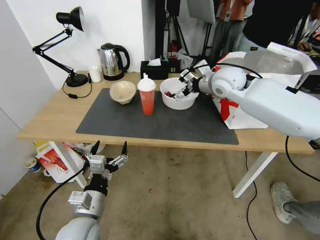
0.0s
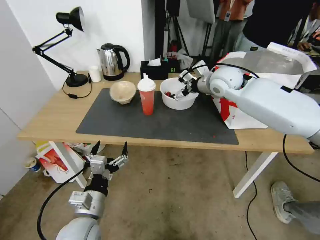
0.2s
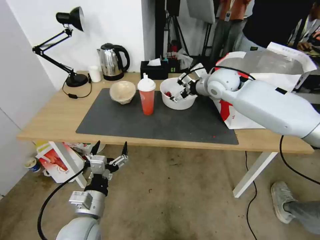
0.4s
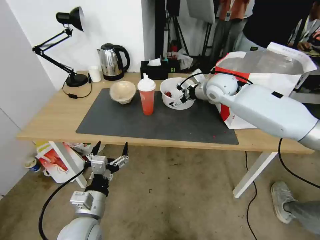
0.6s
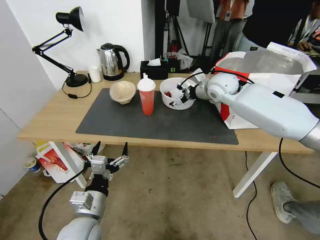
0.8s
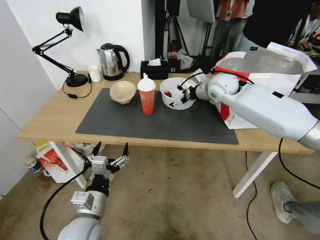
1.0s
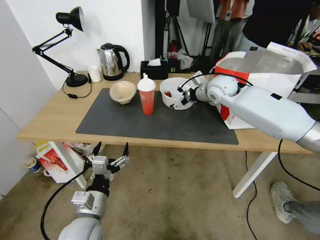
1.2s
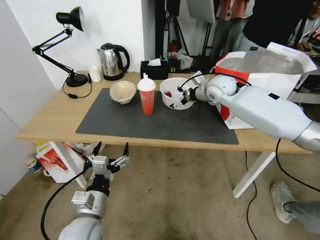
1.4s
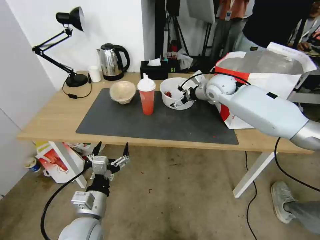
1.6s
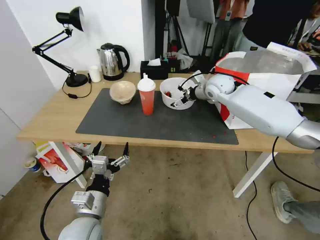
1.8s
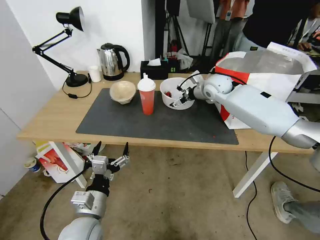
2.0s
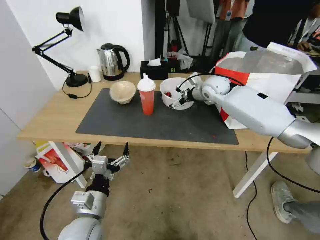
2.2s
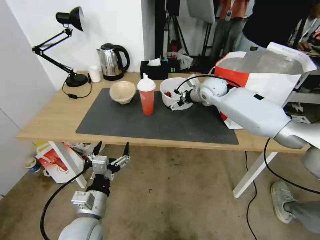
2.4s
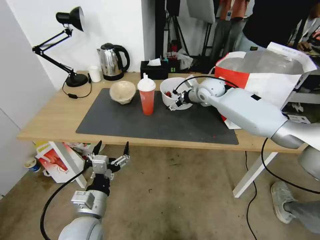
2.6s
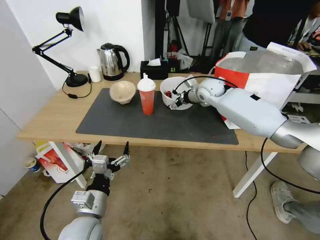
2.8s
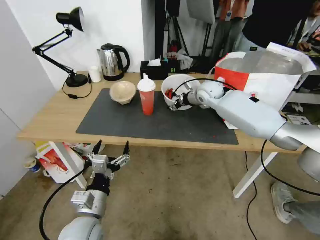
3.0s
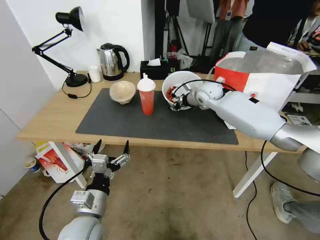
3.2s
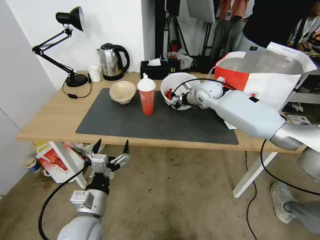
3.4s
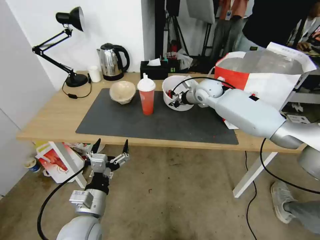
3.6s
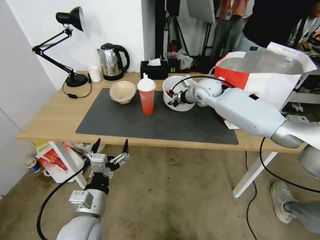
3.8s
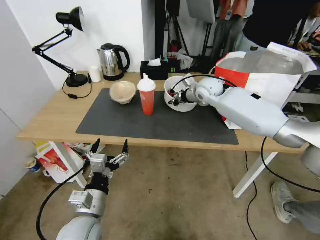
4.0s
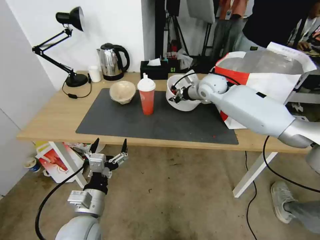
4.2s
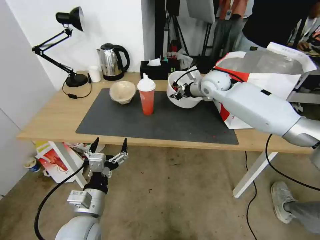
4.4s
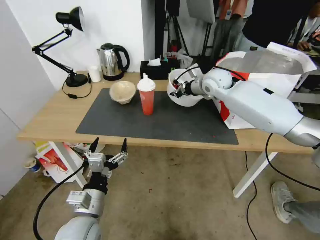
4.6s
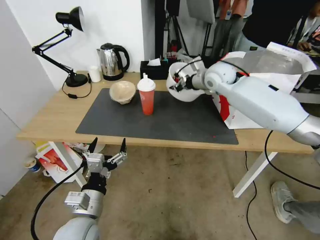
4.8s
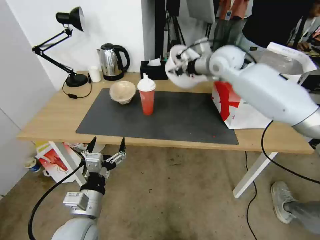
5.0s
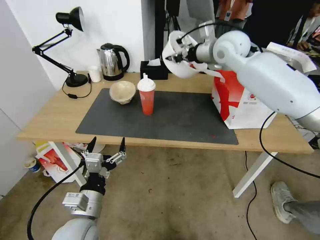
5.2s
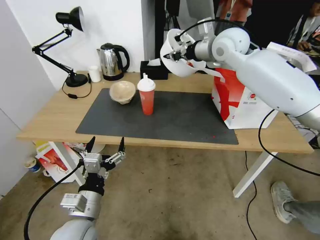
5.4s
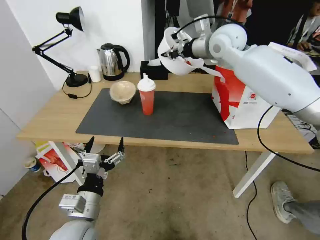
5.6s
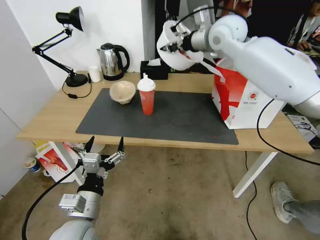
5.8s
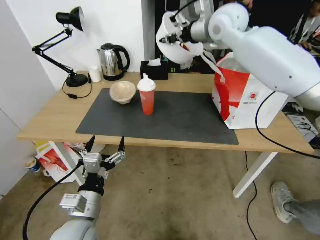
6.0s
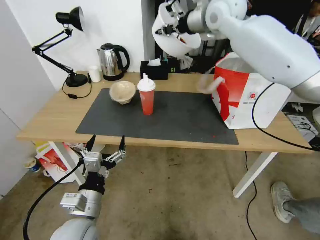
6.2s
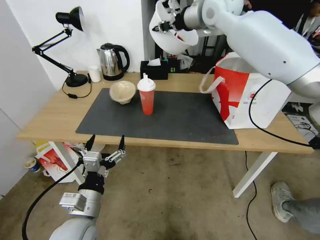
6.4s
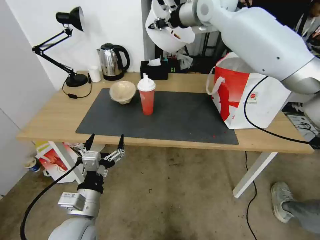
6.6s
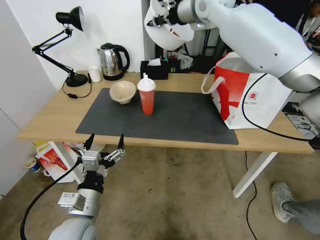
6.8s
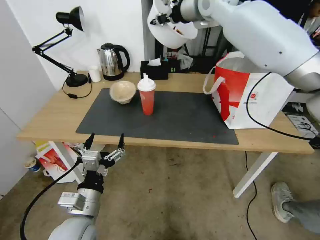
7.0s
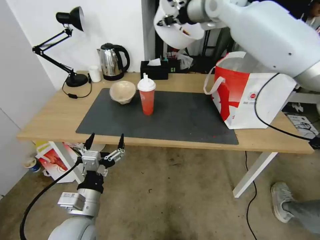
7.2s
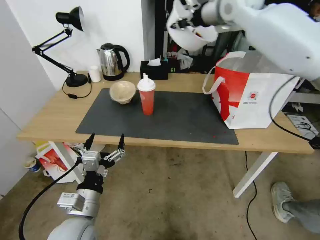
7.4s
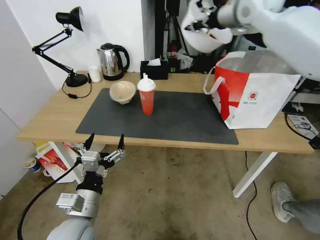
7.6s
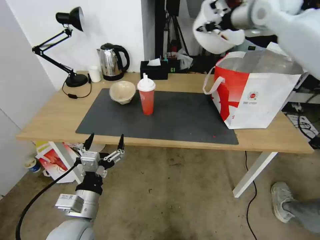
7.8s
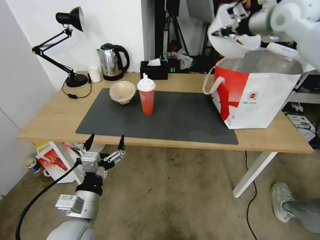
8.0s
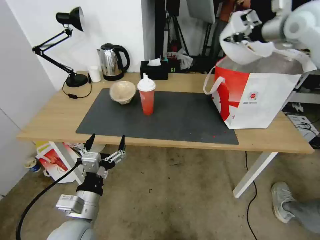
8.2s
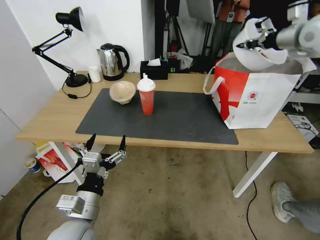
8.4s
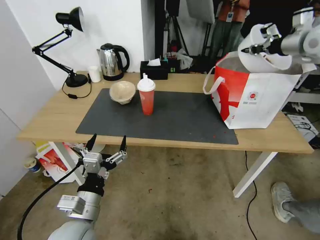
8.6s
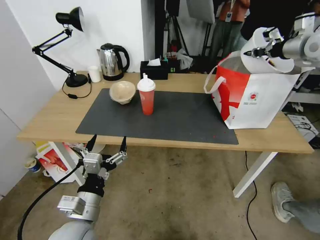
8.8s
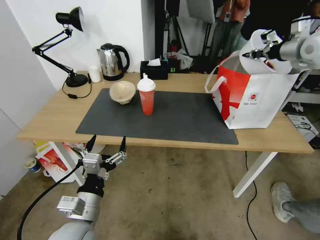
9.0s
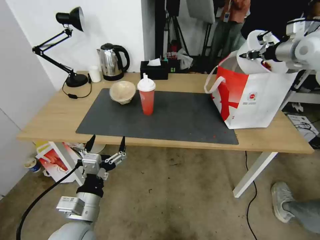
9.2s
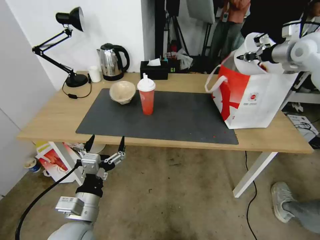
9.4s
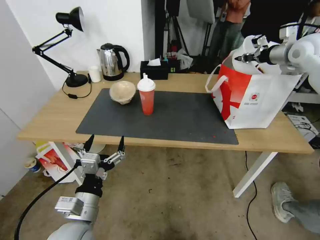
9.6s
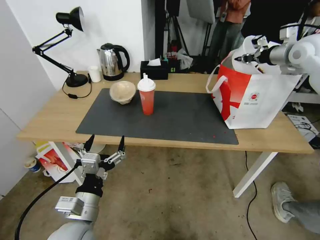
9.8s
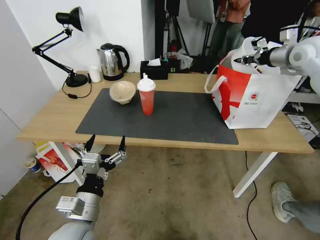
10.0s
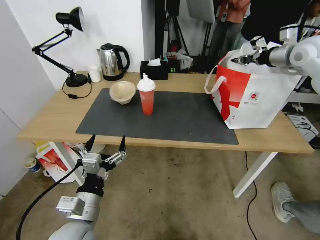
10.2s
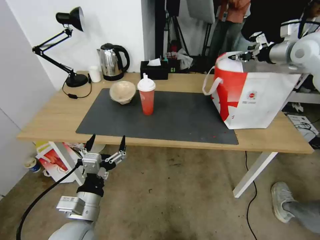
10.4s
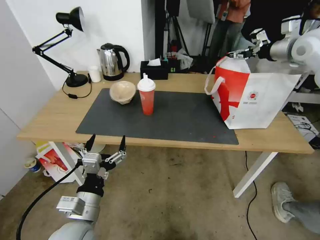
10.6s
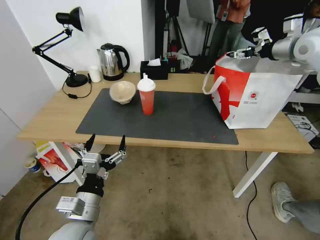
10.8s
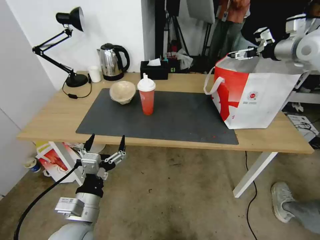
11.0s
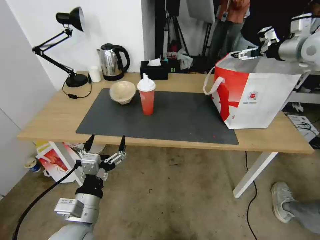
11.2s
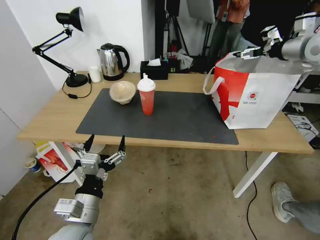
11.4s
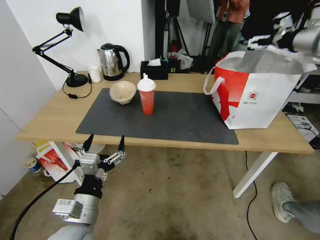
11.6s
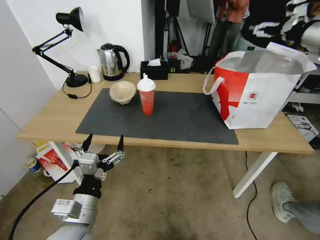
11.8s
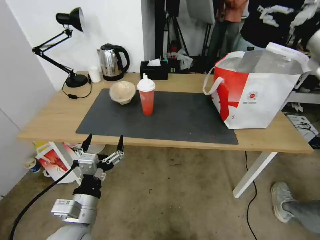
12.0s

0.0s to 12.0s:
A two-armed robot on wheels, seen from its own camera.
Task of the whole recording: Pick up the trash from the table and place it into the takeout bag.
0.0s to 1.6s: The right gripper shifts some 5 cm downward and forward.
1.6s to 3.0s: The right gripper closes its fingers.
3.0s to 4.4s: The right gripper closes its fingers.
4.4s to 6.0s: The right gripper moves upward, approximately 20 cm.
6.0s to 7.6s: The right gripper shifts some 5 cm to the right.
7.6s to 9.0s: The right gripper shifts roughly 20 cm to the right and downward.
9.0s to 10.4s: The grippers move only a little.
10.4s to 12.0s: The right gripper shifts about 15 cm backward, and opens up.

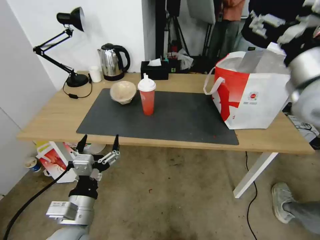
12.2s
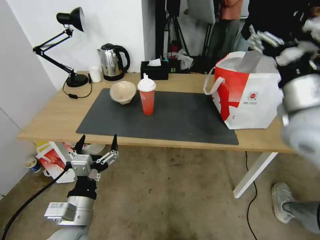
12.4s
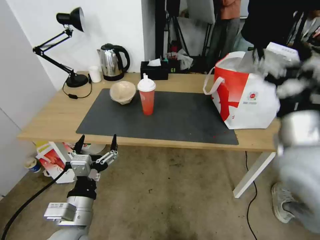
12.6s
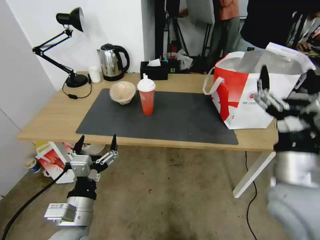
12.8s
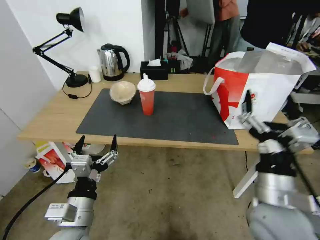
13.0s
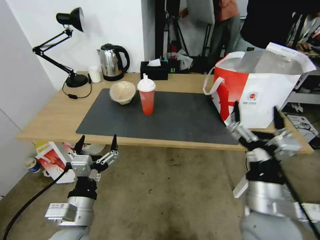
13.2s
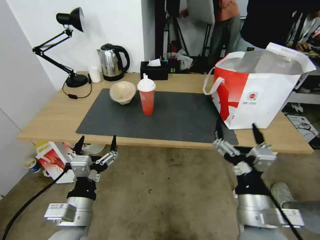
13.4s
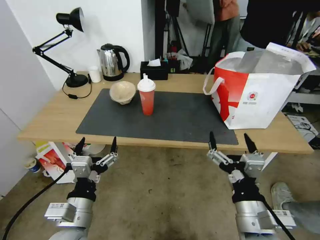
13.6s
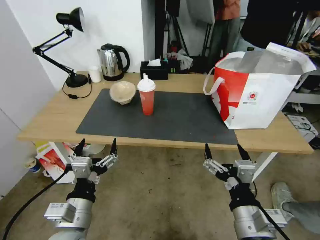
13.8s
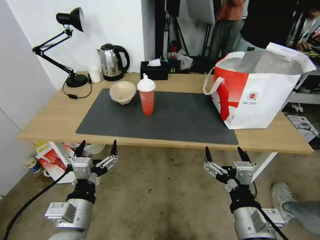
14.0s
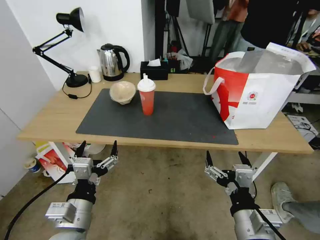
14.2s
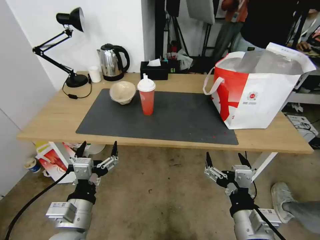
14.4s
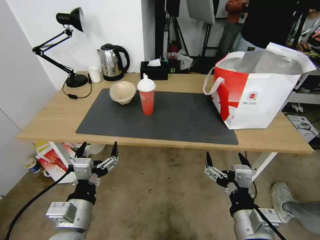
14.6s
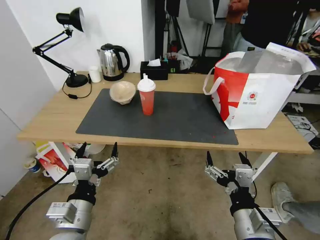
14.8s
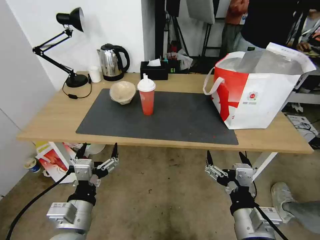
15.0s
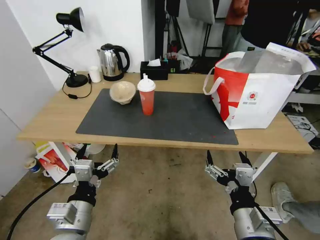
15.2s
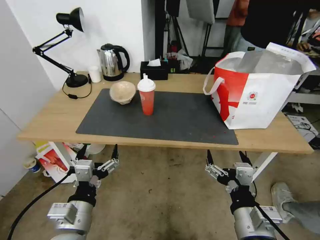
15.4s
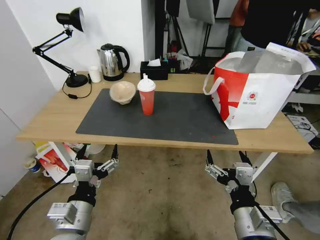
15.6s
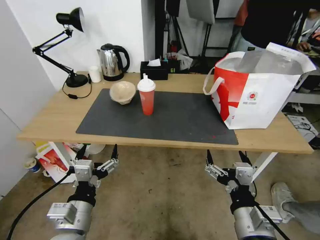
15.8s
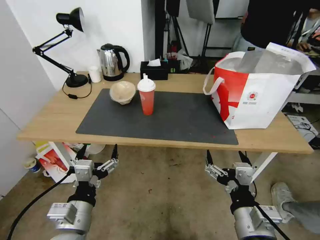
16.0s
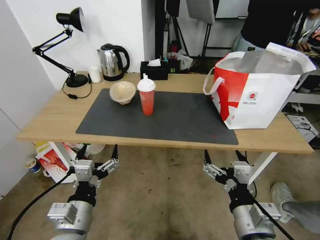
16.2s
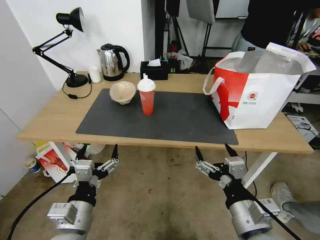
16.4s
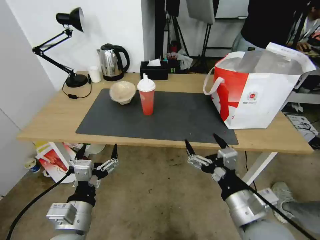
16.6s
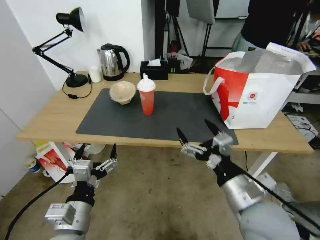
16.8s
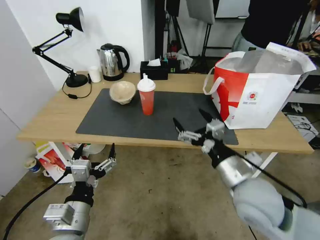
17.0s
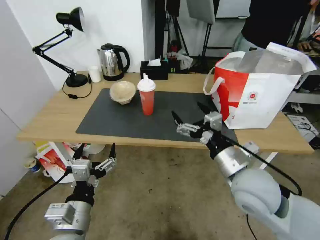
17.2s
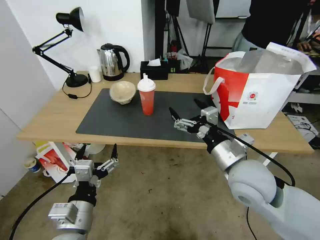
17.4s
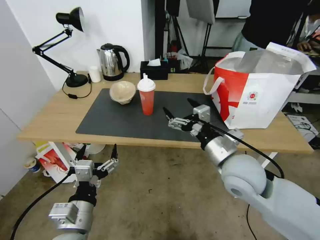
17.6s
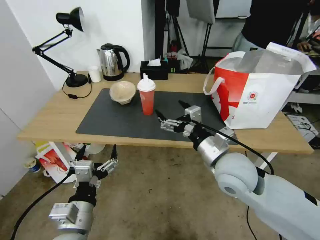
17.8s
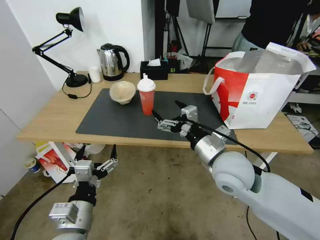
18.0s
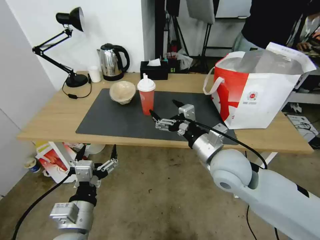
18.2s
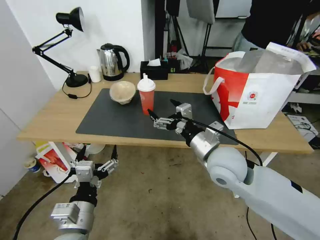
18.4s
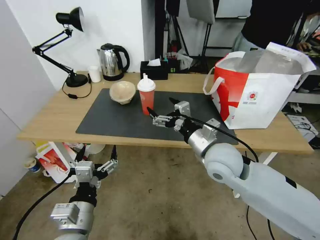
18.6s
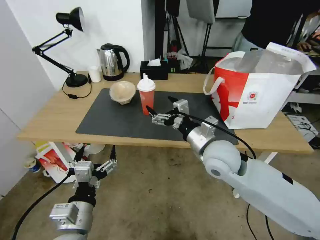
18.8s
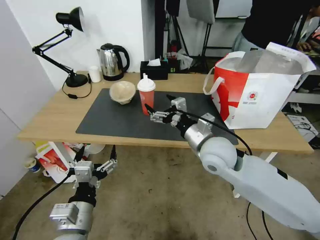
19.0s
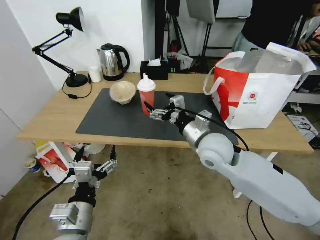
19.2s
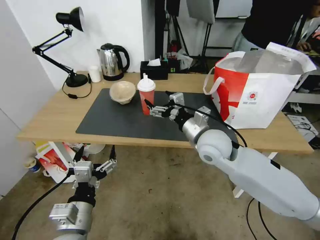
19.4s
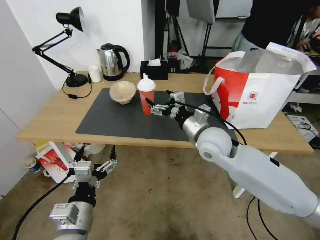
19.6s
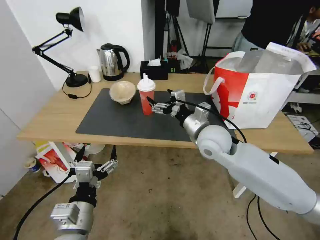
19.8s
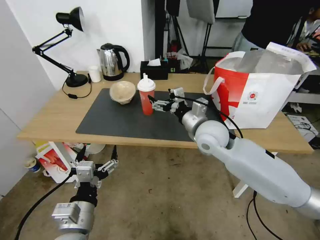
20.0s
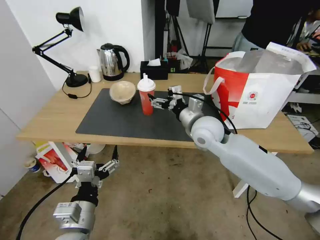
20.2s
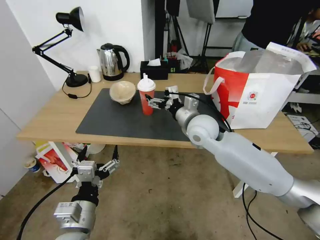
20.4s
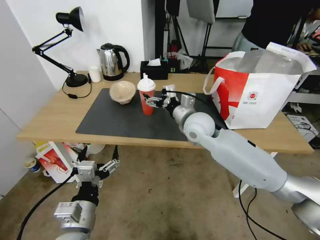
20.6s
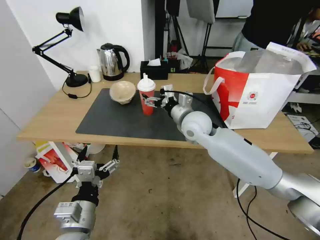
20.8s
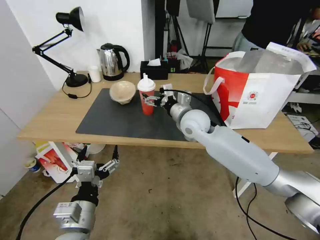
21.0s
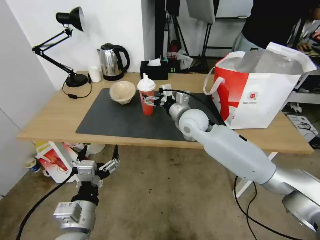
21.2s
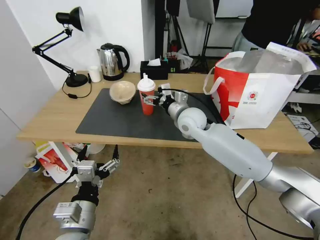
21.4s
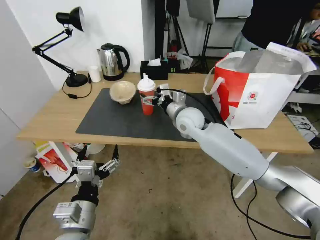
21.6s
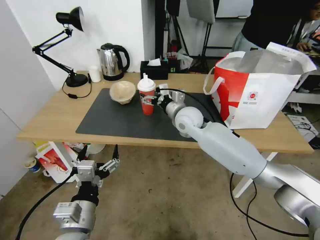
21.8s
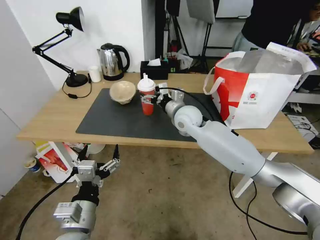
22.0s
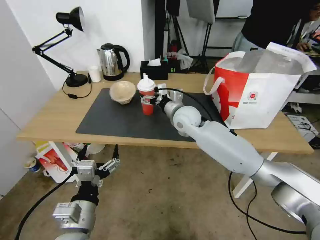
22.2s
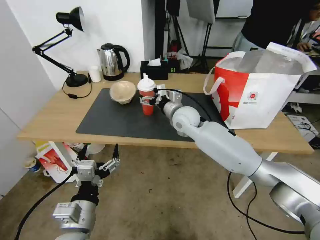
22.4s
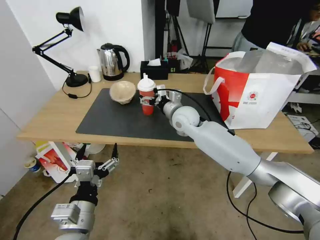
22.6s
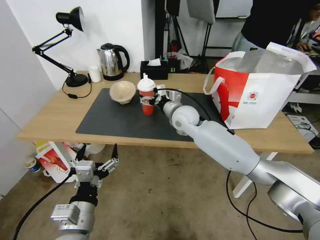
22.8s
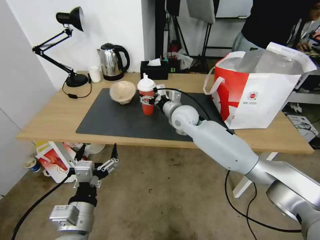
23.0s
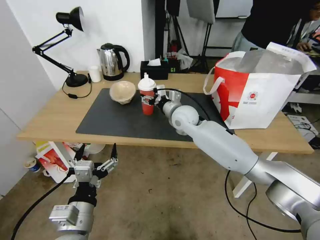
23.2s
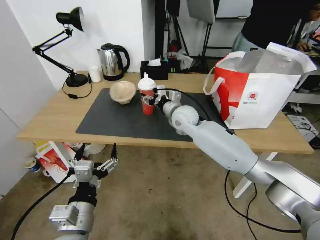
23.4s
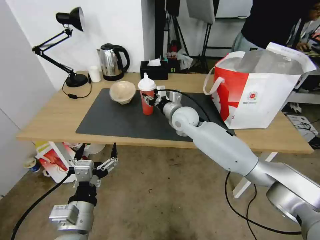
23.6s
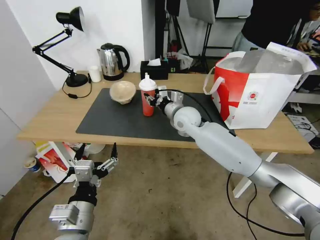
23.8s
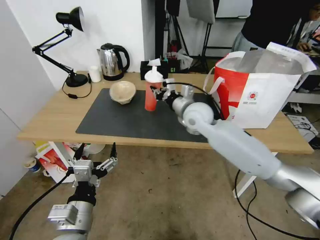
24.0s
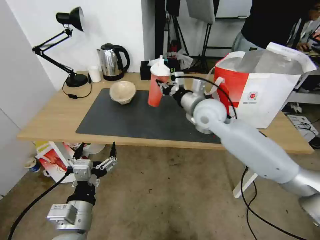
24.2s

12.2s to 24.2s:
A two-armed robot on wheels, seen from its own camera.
Task of the whole recording: Pick up the trash from the table and place it into the takeout bag.
12.2s to 13.8s: The right gripper travels backward, downward and to the left by approximately 35 cm.
13.8s to 15.2s: The grippers stay close to where they were, moving slightly.
16.6s to 18.2s: The right gripper shifts about 15 cm forward.
18.2s to 19.8s: The right gripper is displaced forward by roughly 10 cm.
19.8s to 21.2s: The right gripper moves forward, about 10 cm.
21.2s to 22.6s: The grippers make only small movements.
22.6s to 24.2s: The right gripper heads upward and to the right, covering about 10 cm, and closes its fingers.
